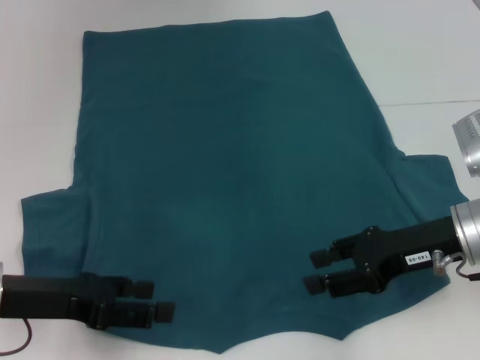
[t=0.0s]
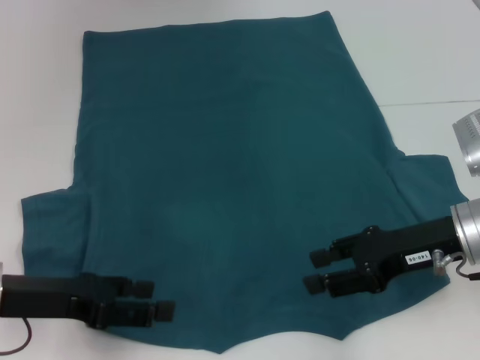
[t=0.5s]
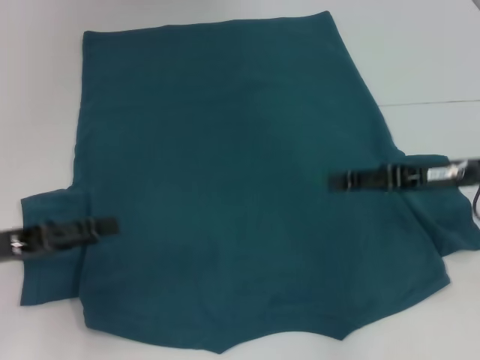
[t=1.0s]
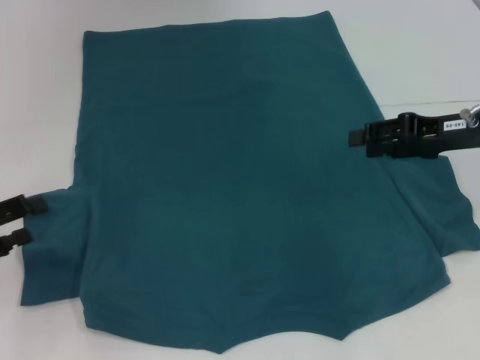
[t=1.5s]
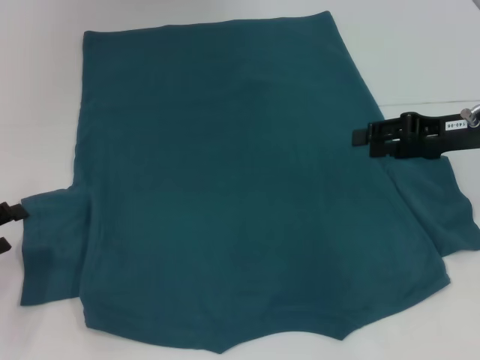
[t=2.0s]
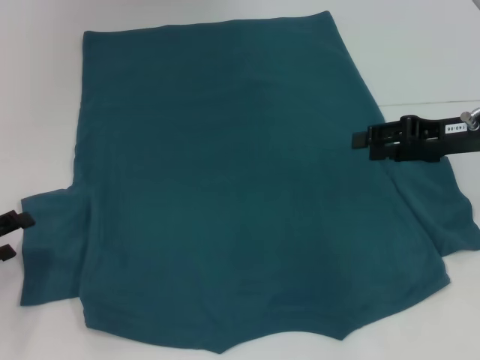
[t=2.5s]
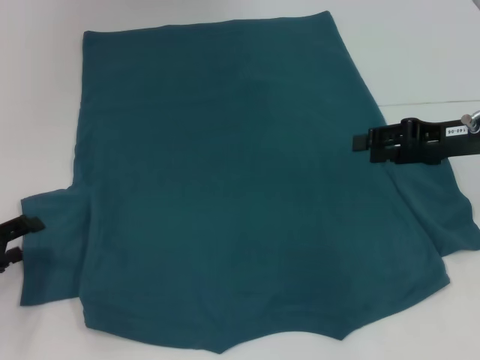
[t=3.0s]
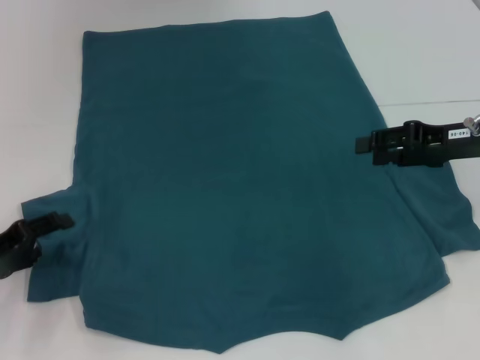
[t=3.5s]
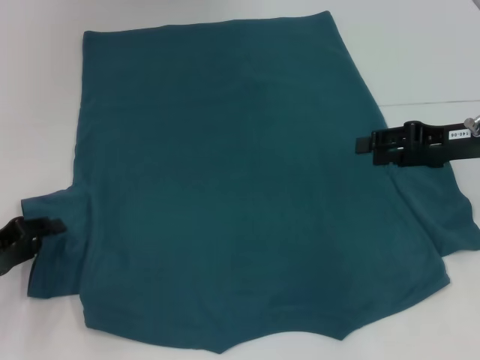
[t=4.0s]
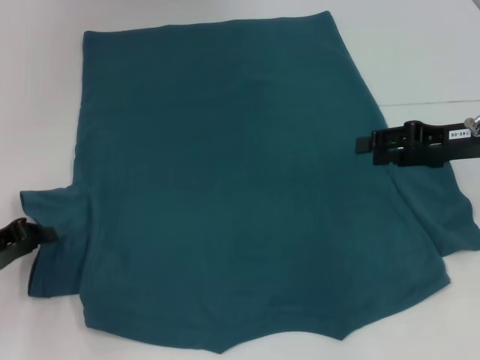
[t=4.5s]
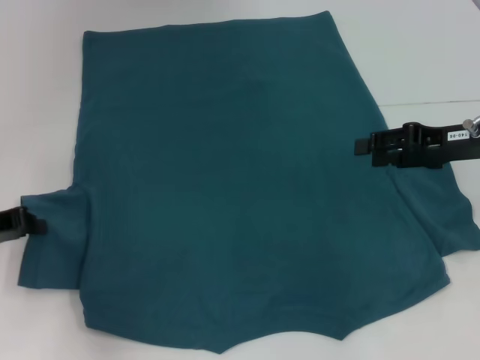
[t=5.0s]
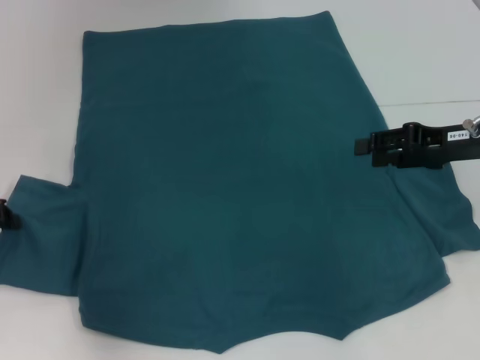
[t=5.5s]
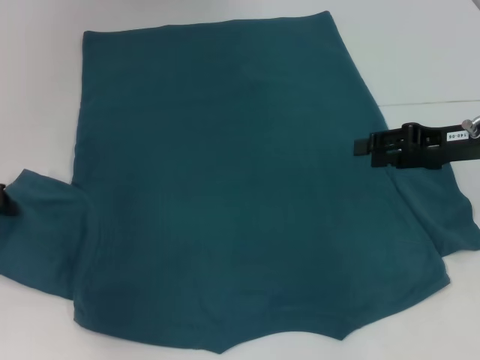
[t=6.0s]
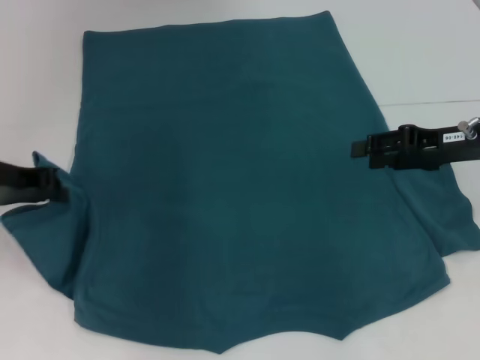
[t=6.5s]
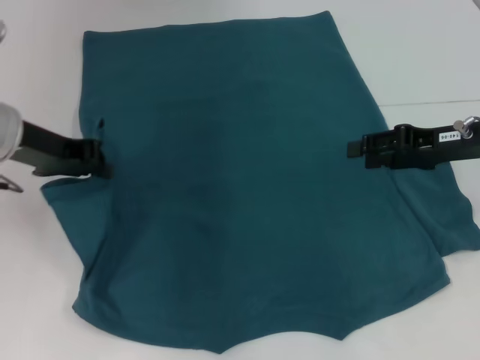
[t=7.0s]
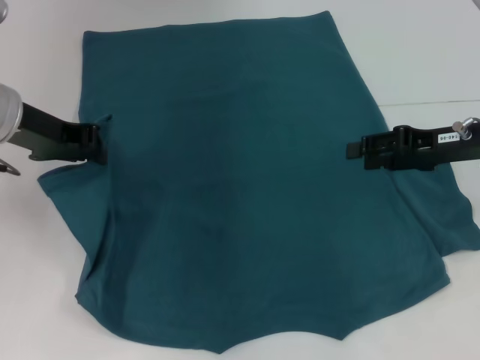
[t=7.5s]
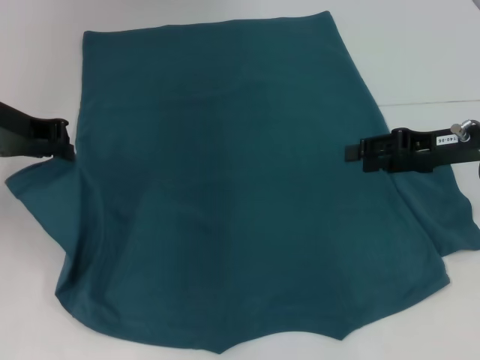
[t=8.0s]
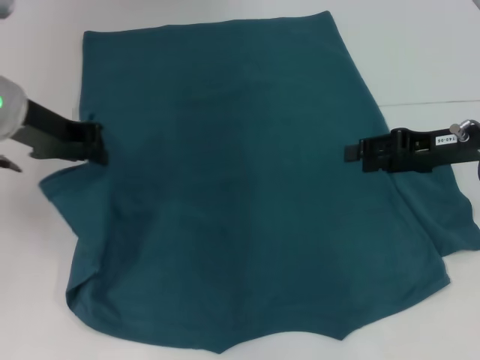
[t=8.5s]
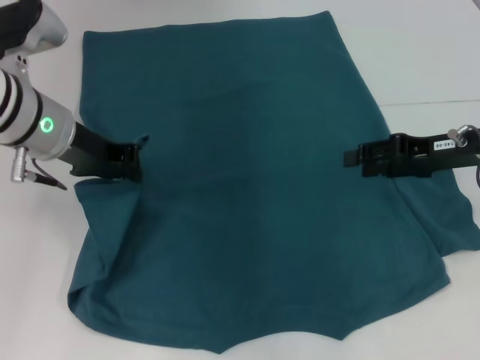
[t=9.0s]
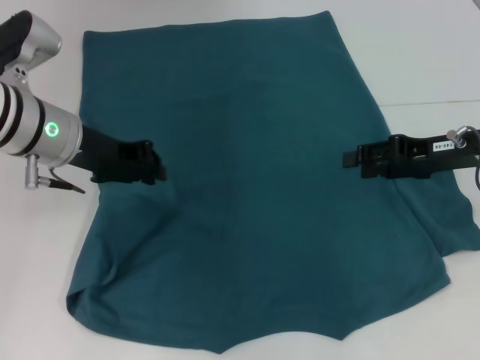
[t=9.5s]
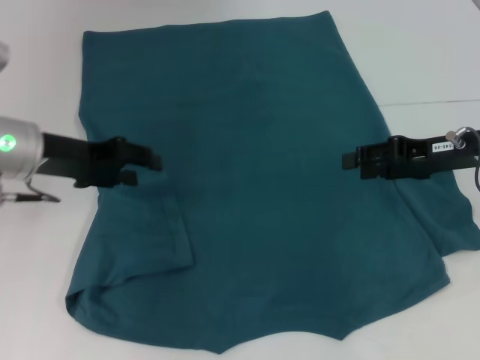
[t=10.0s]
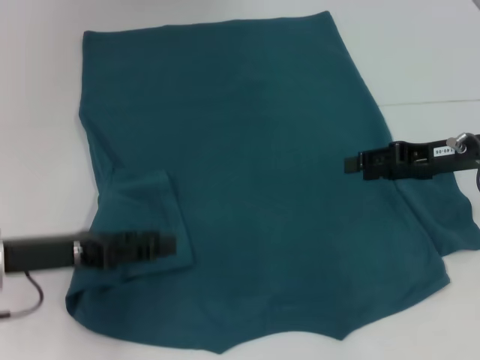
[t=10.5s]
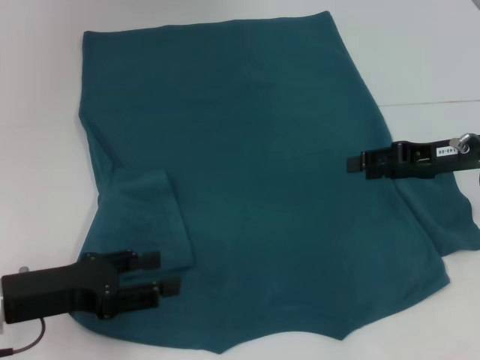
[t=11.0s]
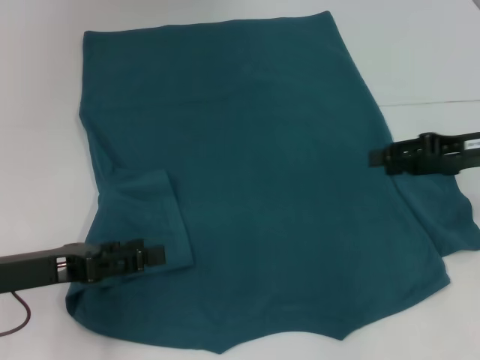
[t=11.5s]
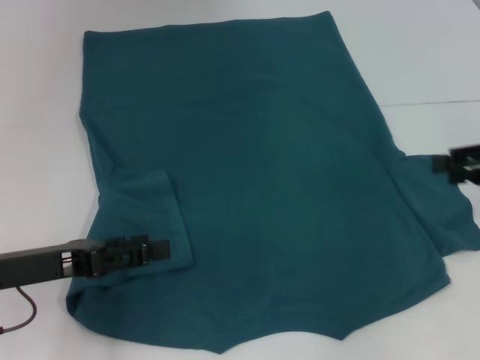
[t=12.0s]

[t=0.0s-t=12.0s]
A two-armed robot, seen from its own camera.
Step, t=0.0s to t=10.0s: Fold the bottom left sleeve with your left hand.
t=0.0s to t=2.0s: The right gripper goes about 10 cm forward and to the right. The left gripper shifts approximately 10 cm to the left.
t=2.0s to t=4.0s: The grippers make only small movements.
t=4.0s to t=6.0s: The left gripper travels upward and forward by some 10 cm, and closes its fingers.
t=6.0s to t=8.0s: The left gripper heads to the right and upward, covering about 10 cm.
t=8.0s to t=10.0s: The left gripper goes some 5 cm downward, and opens up.
t=10.0s to t=12.0s: The left gripper goes approximately 10 cm backward and downward, and opens. The right gripper shifts about 10 cm to the right.

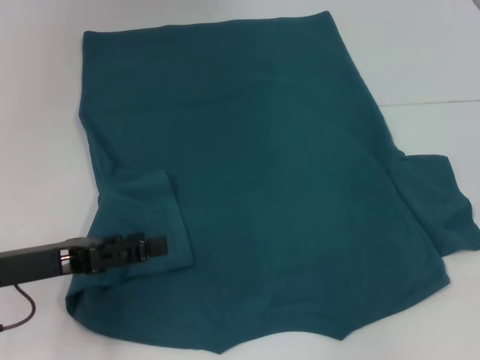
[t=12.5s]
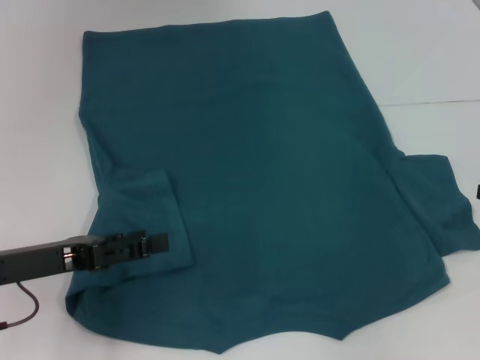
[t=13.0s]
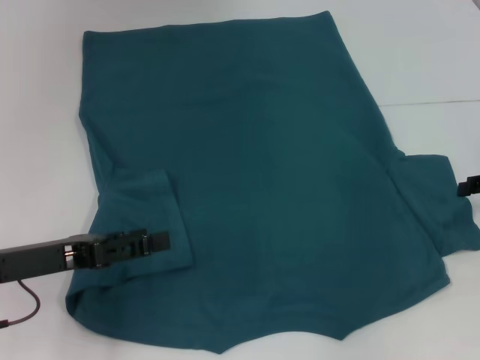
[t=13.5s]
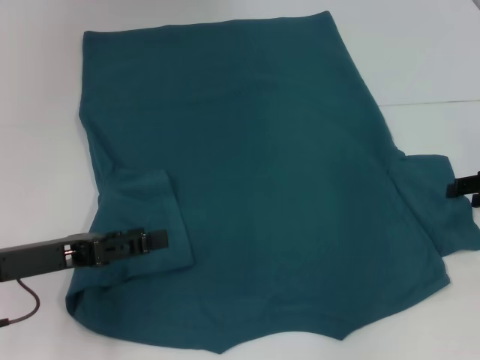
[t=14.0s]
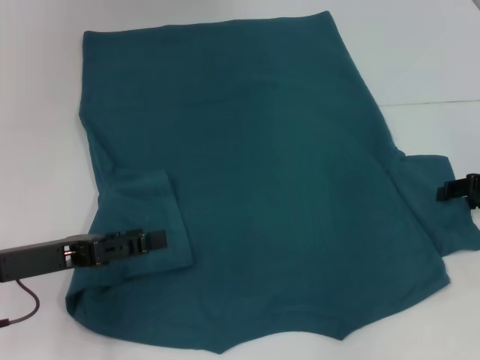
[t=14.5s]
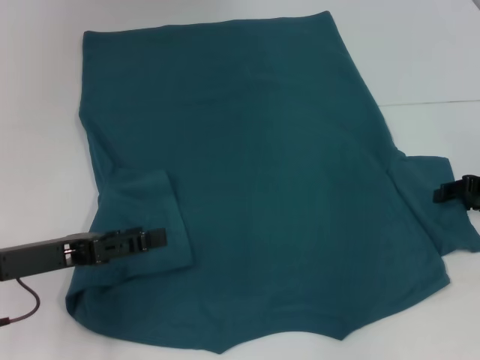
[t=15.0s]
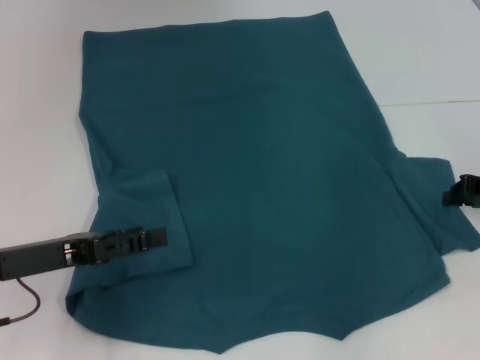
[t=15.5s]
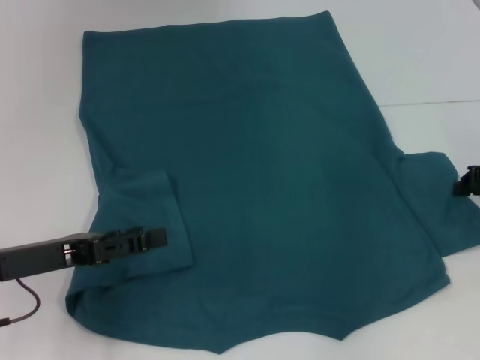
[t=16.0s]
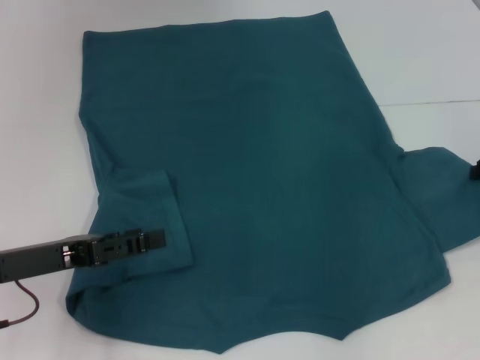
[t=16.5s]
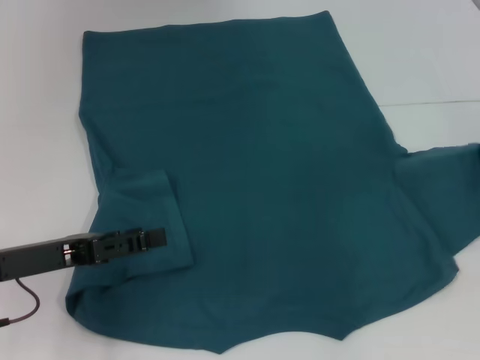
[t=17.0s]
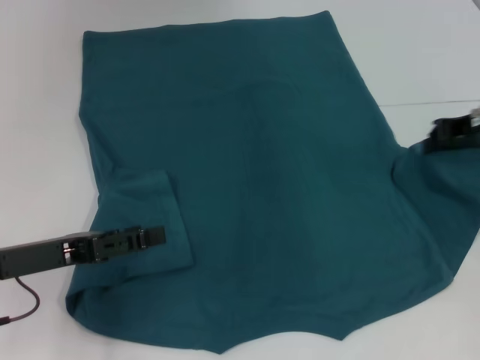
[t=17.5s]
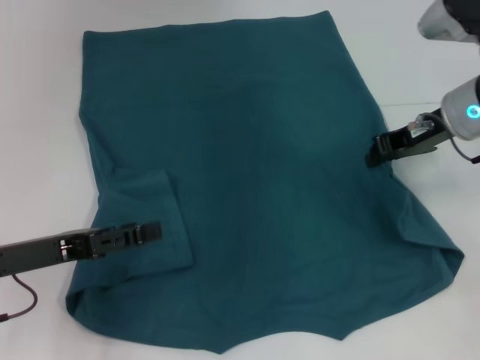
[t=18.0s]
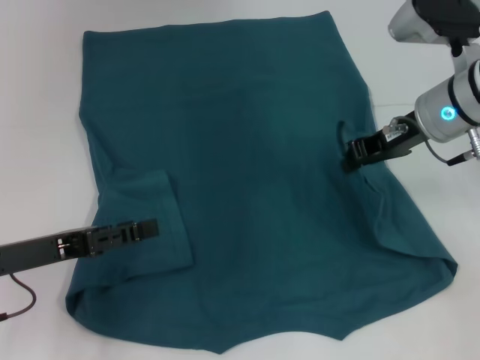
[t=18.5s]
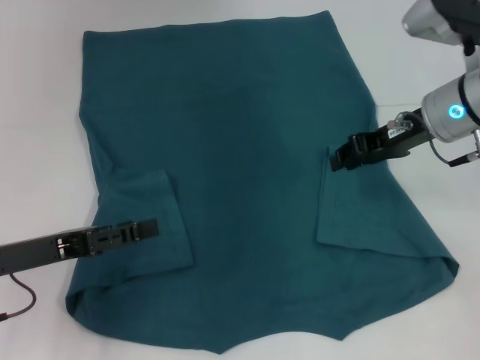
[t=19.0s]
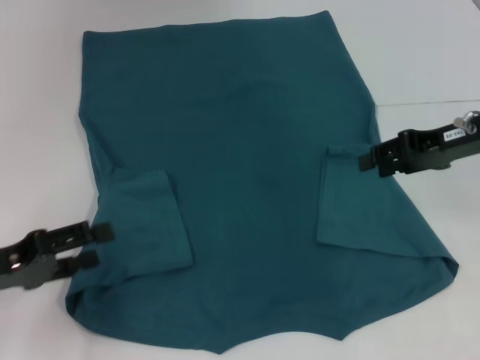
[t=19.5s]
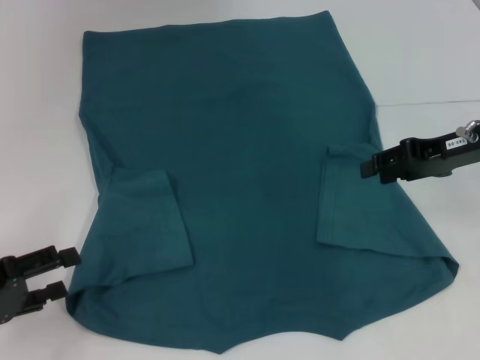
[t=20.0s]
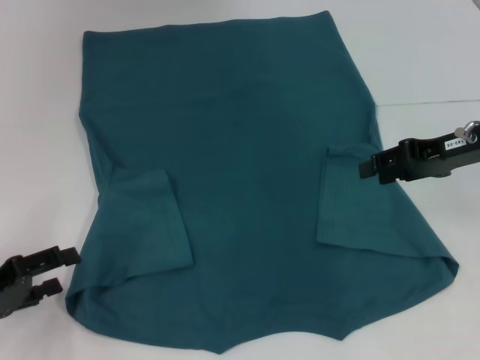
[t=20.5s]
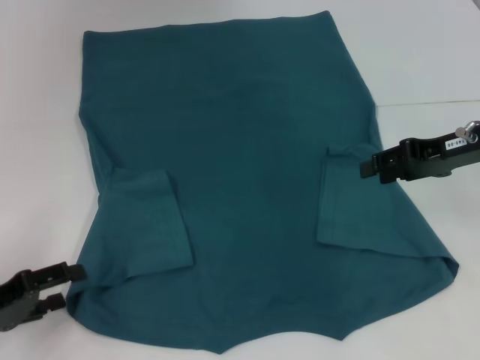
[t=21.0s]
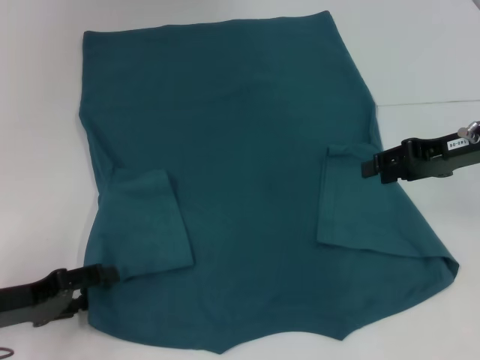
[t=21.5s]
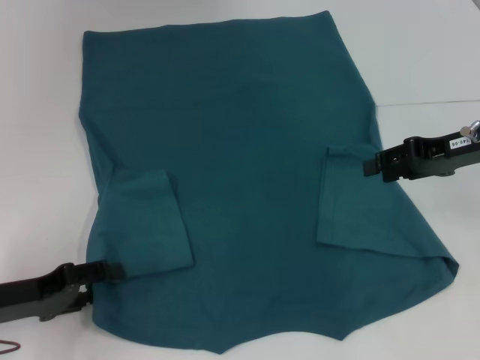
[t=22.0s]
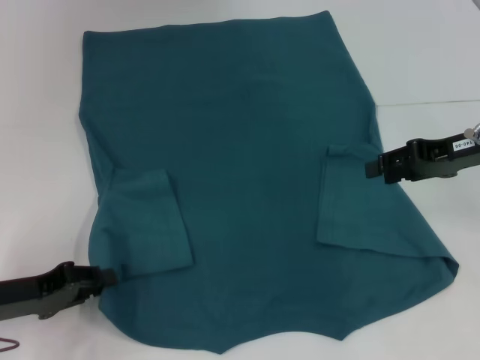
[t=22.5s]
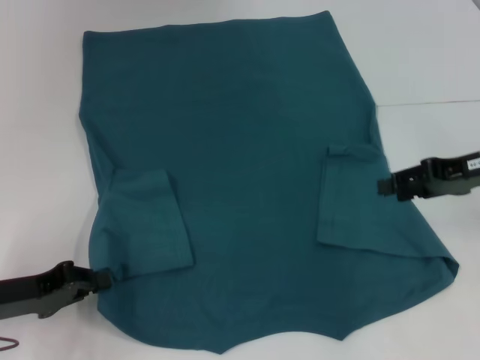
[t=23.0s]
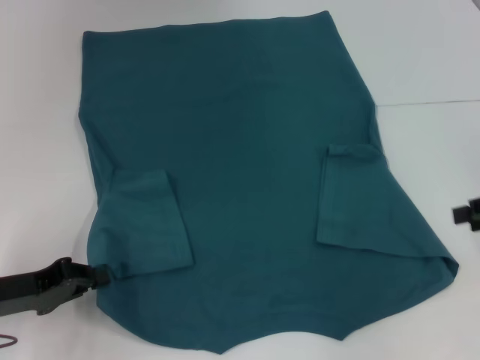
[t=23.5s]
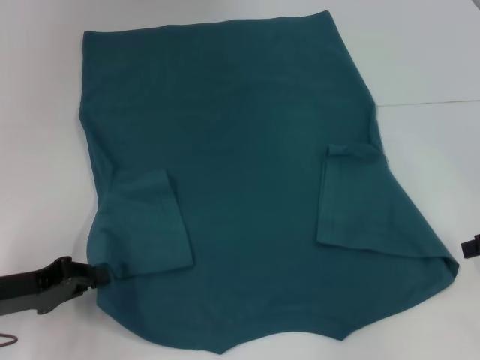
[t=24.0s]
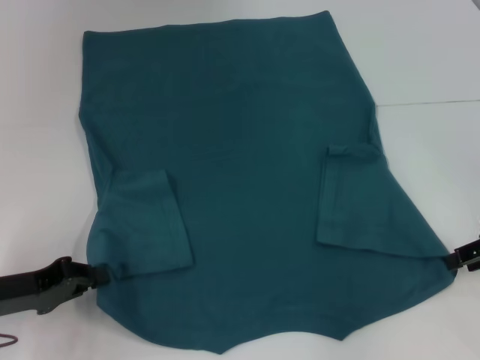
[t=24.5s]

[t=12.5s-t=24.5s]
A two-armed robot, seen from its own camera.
Step, t=12.5s to t=19.0s: Fold the bottom right sleeve to the right.
Step, t=19.5s to t=23.0s: Grab the bottom left corner with your left hand.
t=12.5s to t=14.5s: The right gripper moves downward and to the left, approximately 10 cm.
t=14.5s to t=16.5s: The right gripper closes up.
t=16.5s to t=18.5s: The right gripper moves to the left, some 15 cm.
t=18.5s to t=20.5s: The left gripper shifts roughly 5 cm to the left. Meanwhile the right gripper heads to the right, covering roughly 5 cm, and opens up.
t=20.5s to t=22.5s: The left gripper closes its fingers.
t=22.5s to t=24.5s: The right gripper is displaced to the right and backward by some 10 cm; the left gripper closes up.

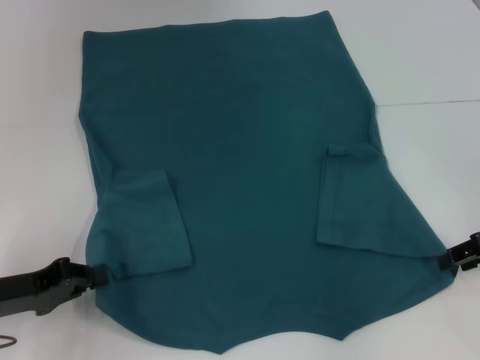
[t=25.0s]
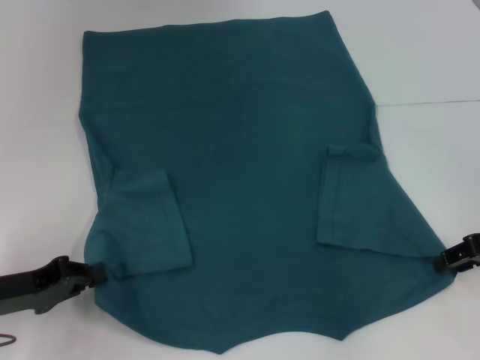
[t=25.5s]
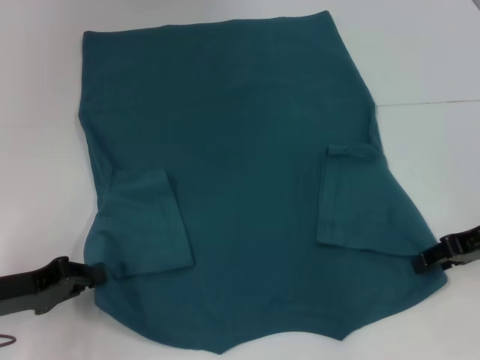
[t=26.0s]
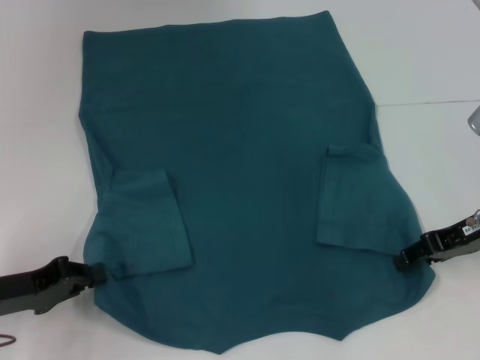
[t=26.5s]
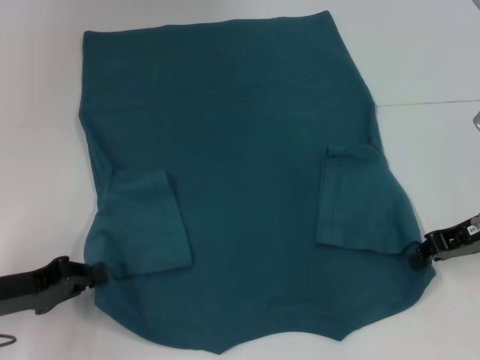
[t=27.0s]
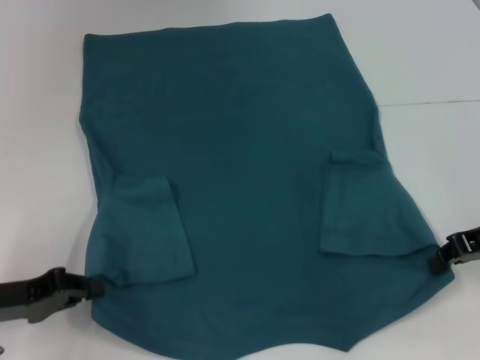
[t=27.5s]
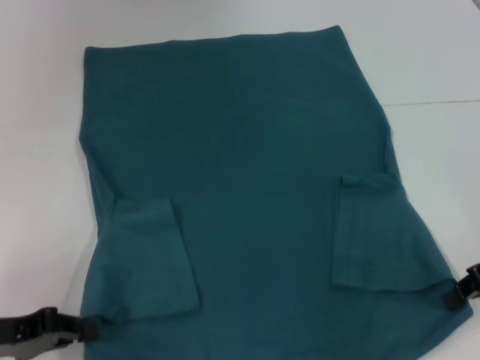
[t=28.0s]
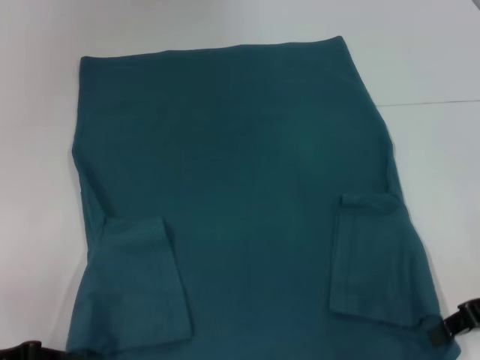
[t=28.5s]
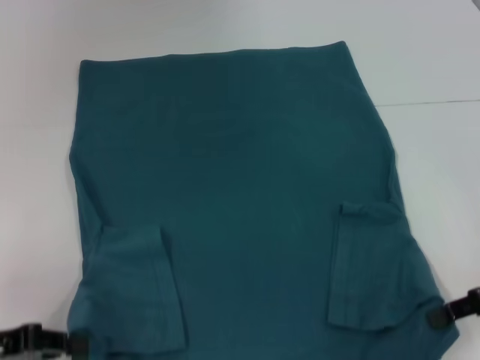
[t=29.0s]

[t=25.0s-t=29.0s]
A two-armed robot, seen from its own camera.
Step, t=25.0s to t=27.0s: Grab the bottom right corner with your right hand.
t=25.0s to t=27.0s: The grippers make only small movements.
t=27.0s to t=29.0s: The left gripper shifts by about 5 cm. The right gripper shifts approximately 5 cm backward.
